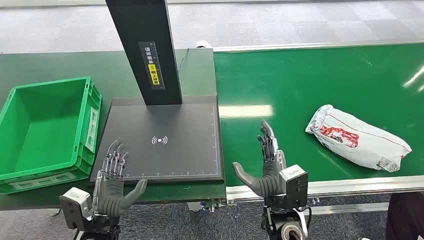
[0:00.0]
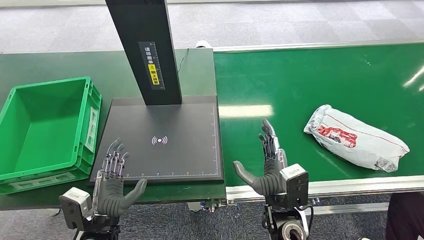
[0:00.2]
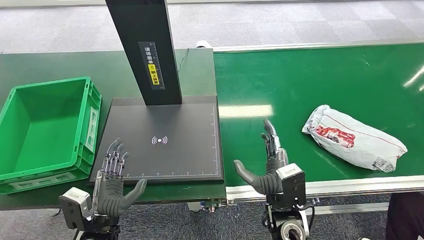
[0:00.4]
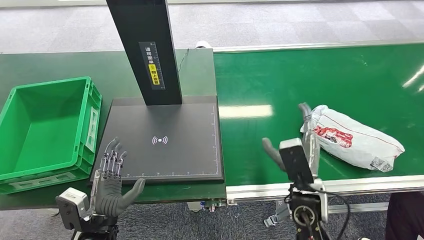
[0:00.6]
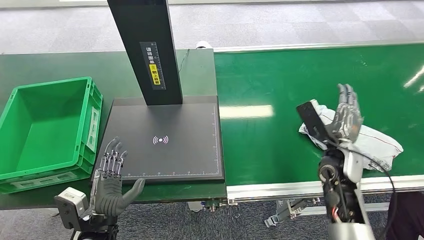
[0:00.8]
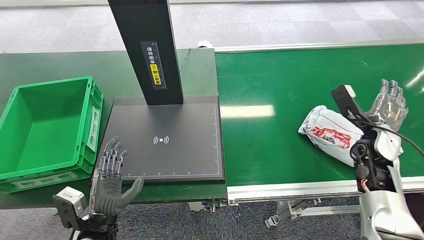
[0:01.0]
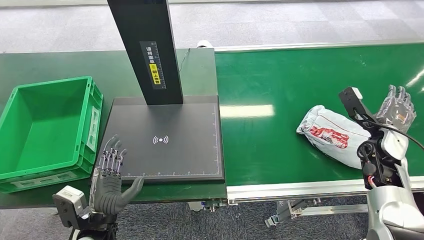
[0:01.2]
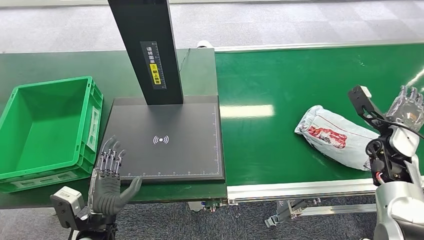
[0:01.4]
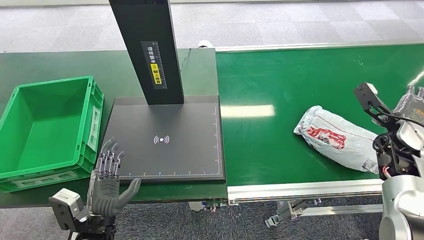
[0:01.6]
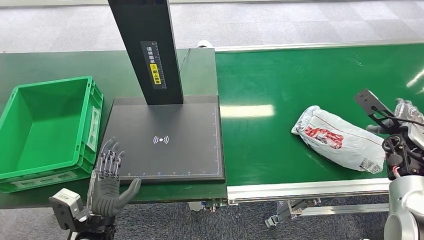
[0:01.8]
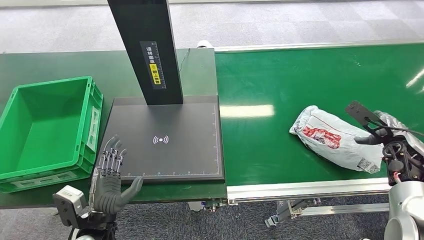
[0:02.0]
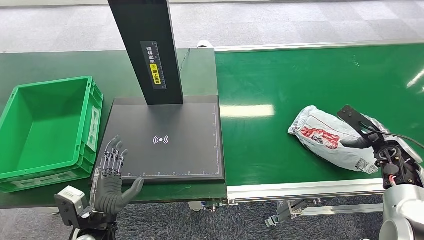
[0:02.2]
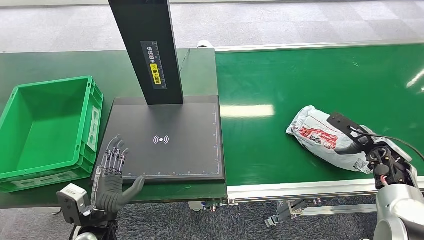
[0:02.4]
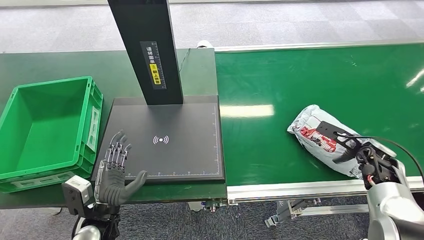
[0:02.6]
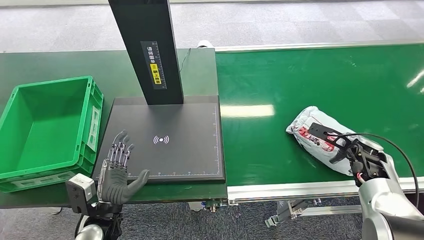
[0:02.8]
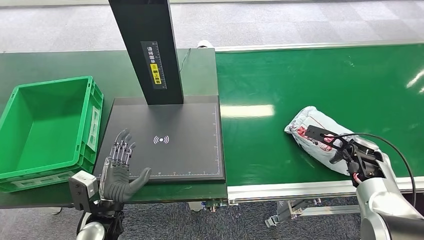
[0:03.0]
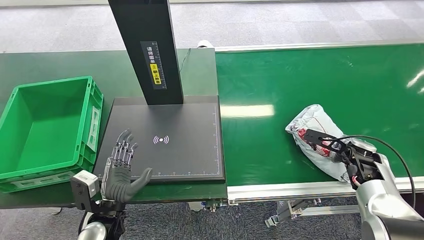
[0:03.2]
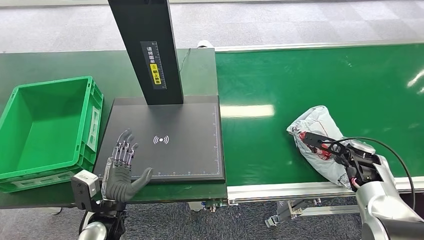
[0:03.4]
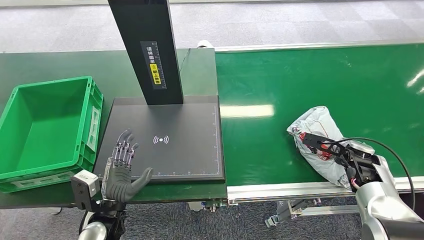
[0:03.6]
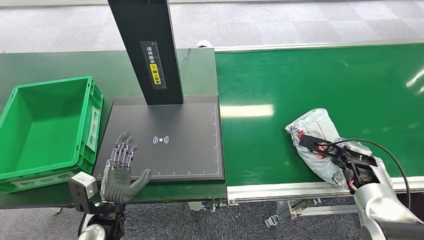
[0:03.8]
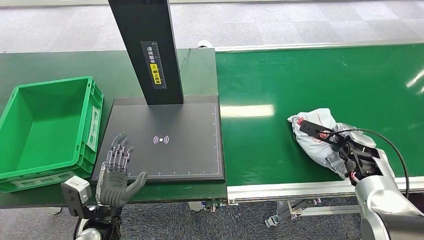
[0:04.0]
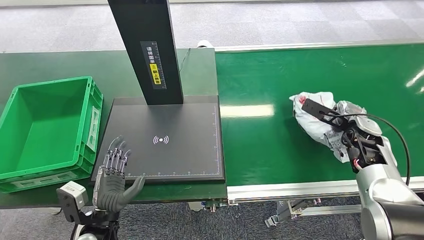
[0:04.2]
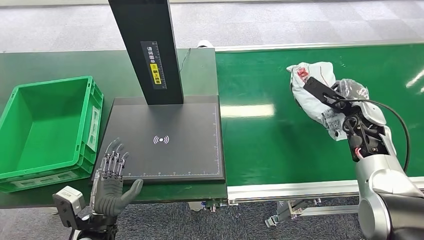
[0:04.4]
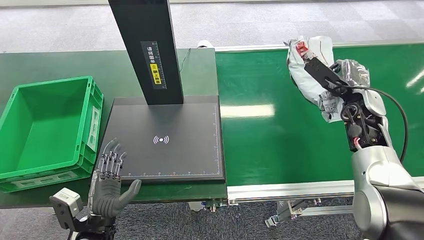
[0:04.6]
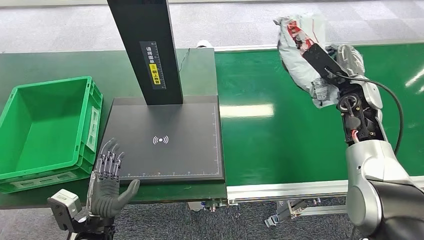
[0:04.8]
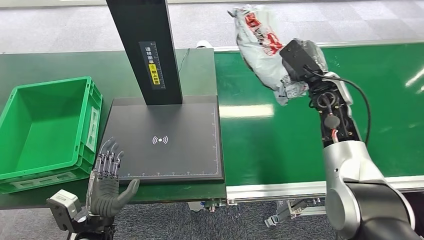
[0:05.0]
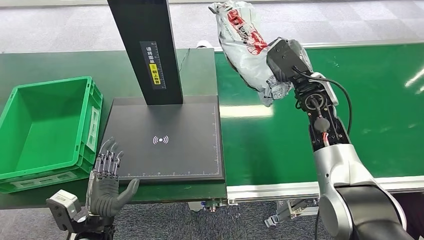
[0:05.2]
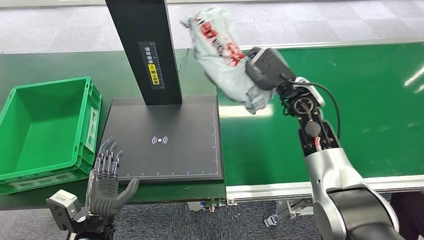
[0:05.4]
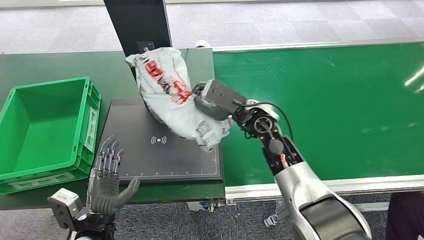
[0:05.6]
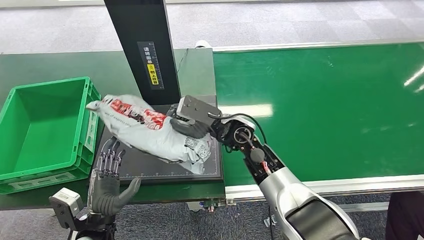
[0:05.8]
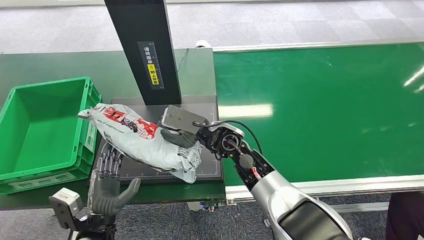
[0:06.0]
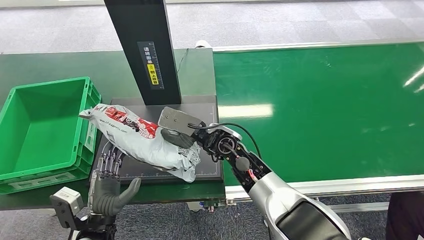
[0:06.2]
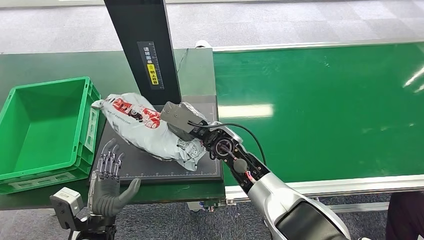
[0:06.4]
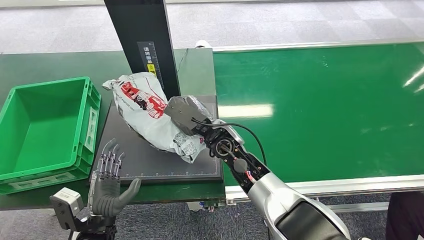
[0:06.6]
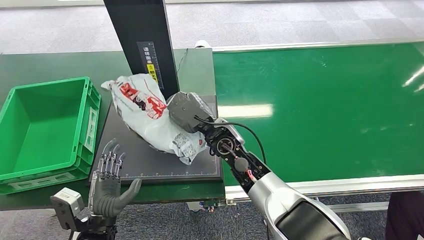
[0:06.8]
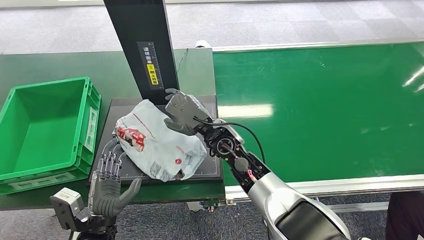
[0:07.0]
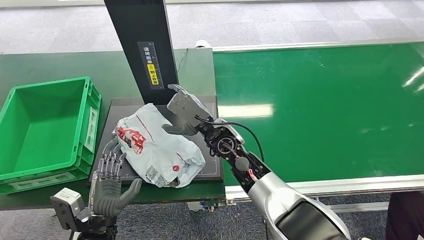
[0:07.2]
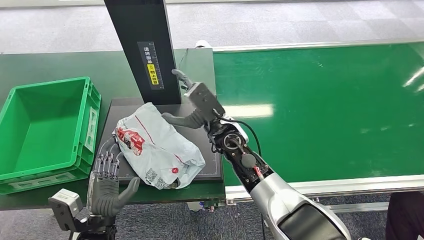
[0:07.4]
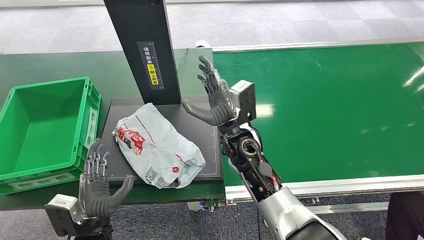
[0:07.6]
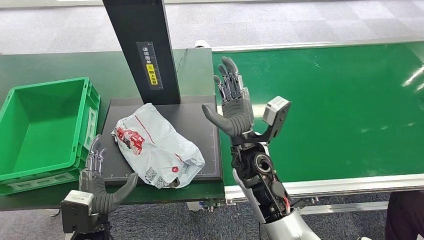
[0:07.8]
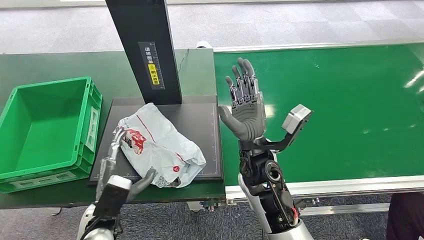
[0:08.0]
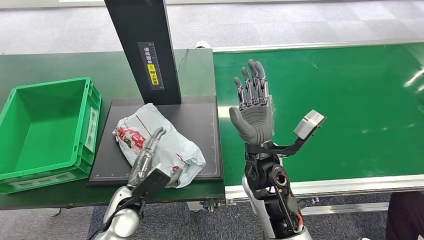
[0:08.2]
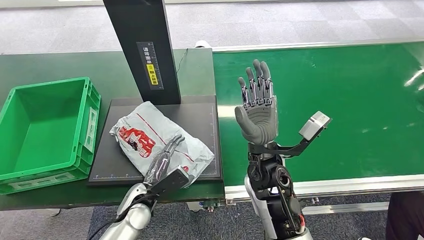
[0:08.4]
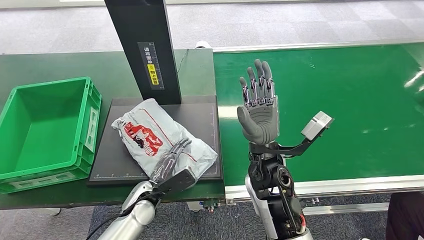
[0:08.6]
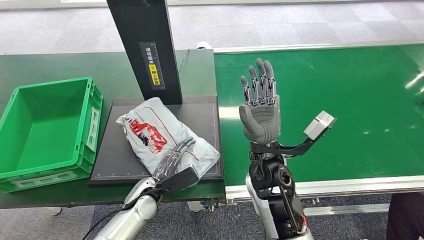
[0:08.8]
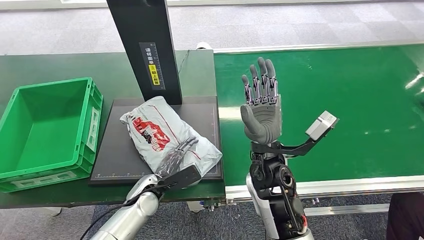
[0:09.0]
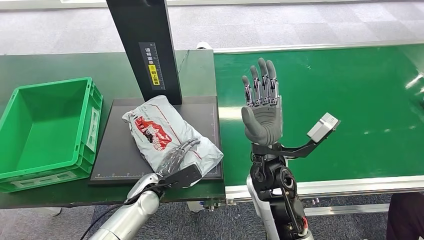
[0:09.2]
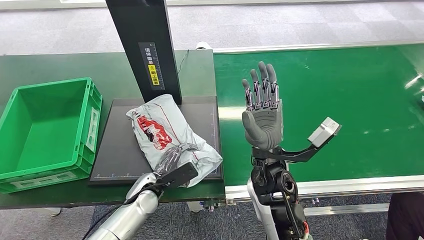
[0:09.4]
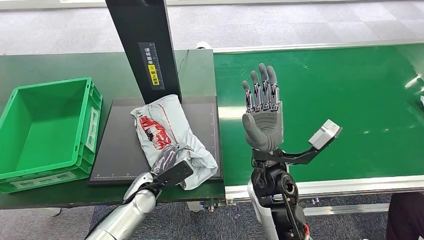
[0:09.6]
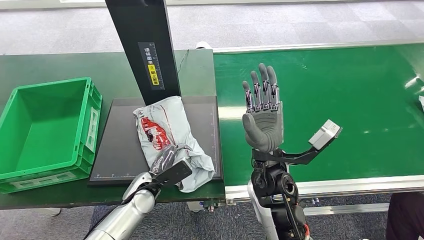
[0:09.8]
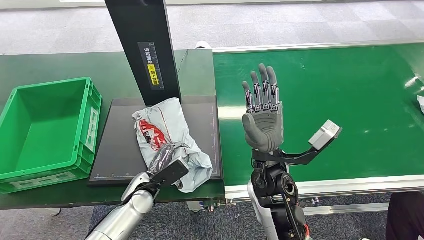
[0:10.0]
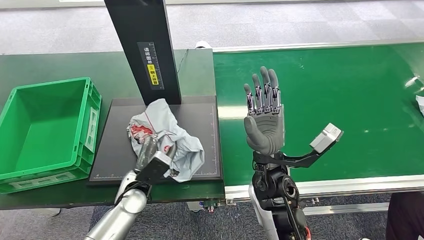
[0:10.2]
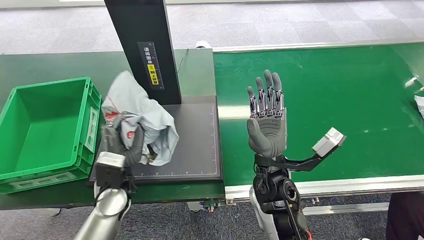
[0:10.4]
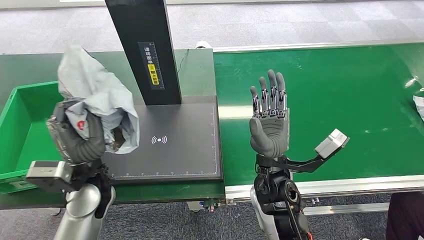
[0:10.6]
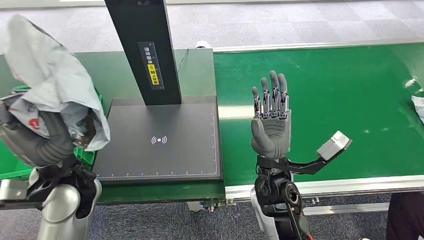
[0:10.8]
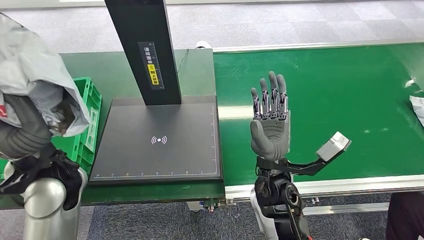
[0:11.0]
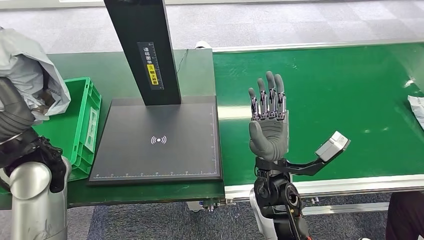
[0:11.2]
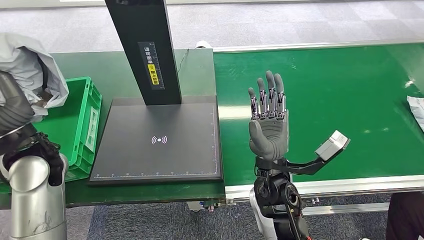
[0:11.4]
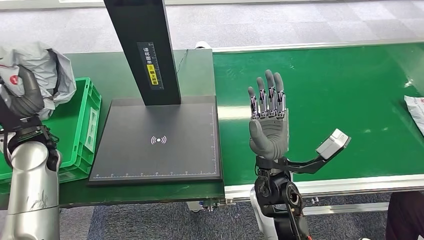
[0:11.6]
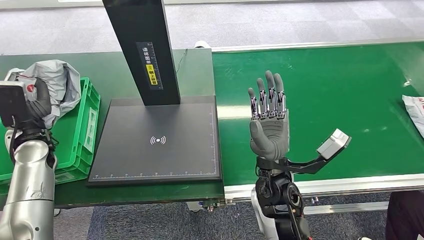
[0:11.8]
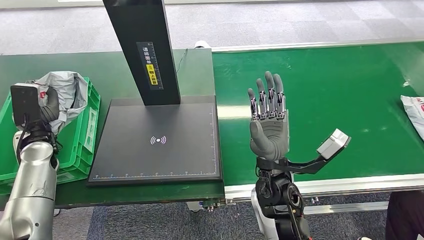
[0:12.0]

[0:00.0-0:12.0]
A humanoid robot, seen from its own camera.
Step, 0:00.0 to 0:04.8: Pick up the package from the conveyor belt.
Step, 0:05.0 to 0:08.0: Place the package onto the inbound machine.
Step, 0:08.2 to 0:11.0: Pick up the package from the inbound machine.
0:01.6 to 0:03.0: The right hand heads downward and to the left, covering approximately 10 cm.
0:03.0 to 0:04.4: The right hand travels upward and forward by about 10 cm.

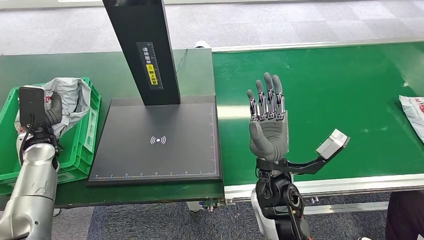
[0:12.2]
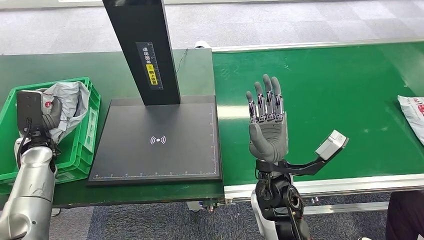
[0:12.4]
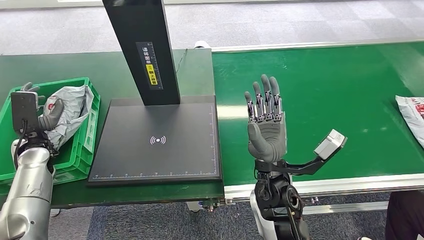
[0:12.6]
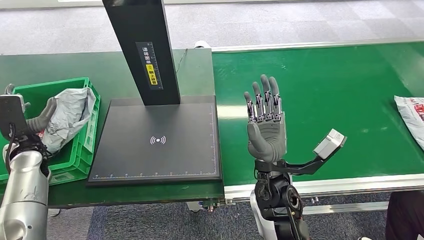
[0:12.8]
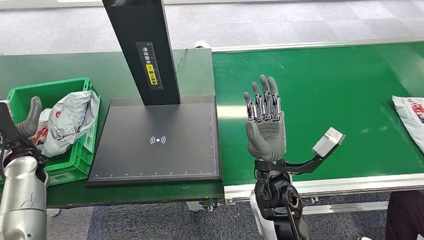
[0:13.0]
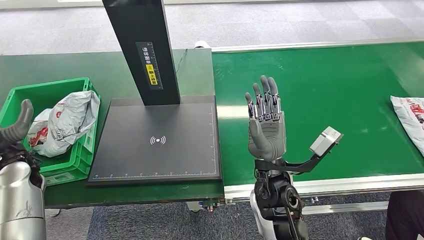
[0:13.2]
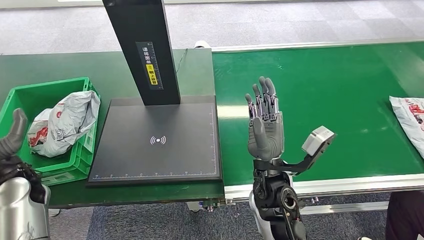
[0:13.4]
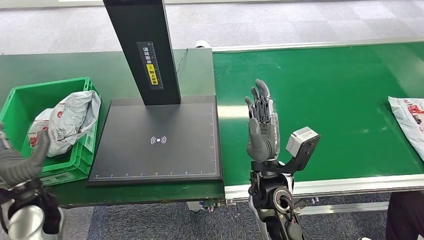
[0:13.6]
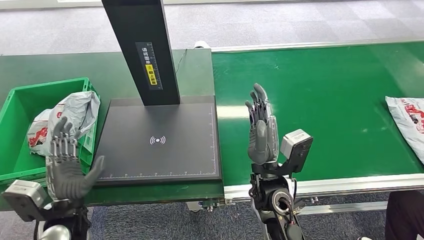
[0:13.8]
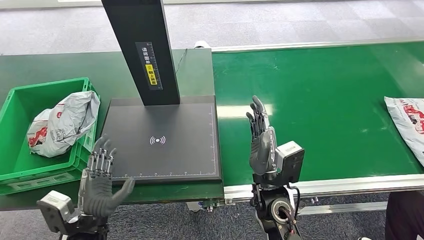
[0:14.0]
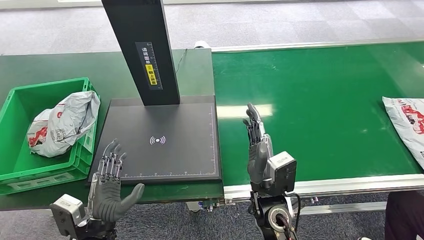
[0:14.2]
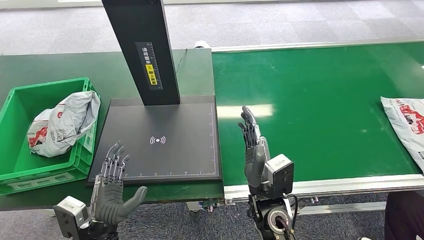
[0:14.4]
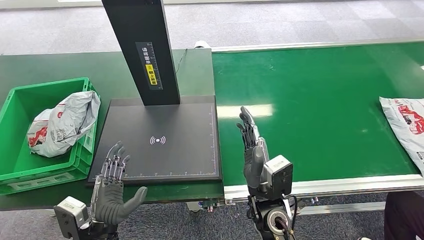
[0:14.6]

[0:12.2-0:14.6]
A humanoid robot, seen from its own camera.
Step, 0:12.2 to 0:14.6: Place the package into the parcel locker.
0:12.2 to 0:13.4: The left hand travels backward by some 5 cm.
0:13.4 to 0:14.6: The right hand travels downward by approximately 5 cm. Meanwhile the left hand goes approximately 25 cm to the right and backward.
